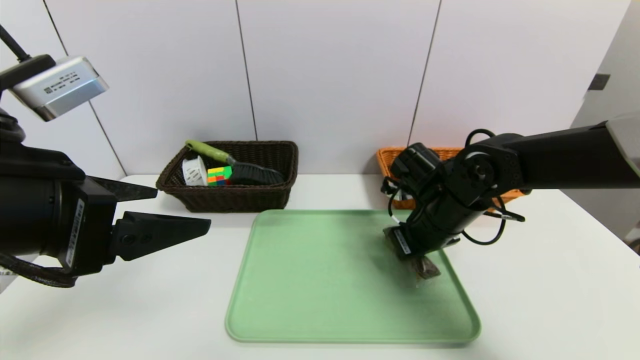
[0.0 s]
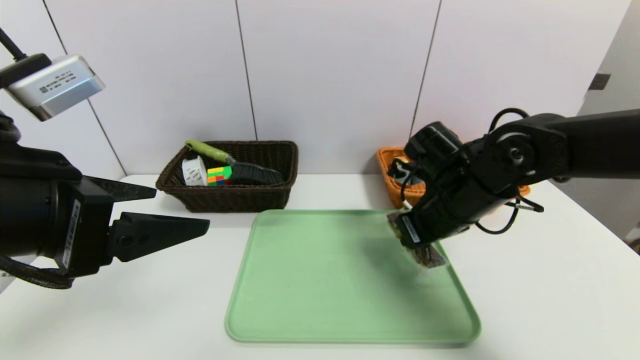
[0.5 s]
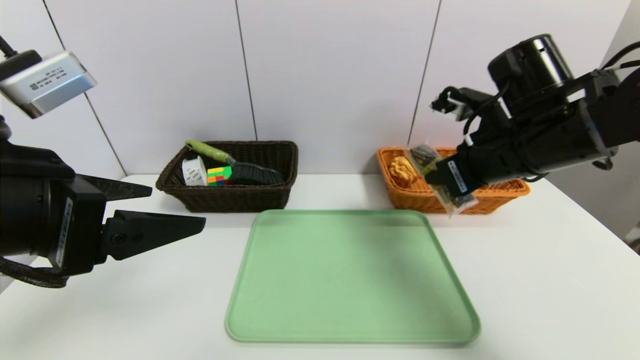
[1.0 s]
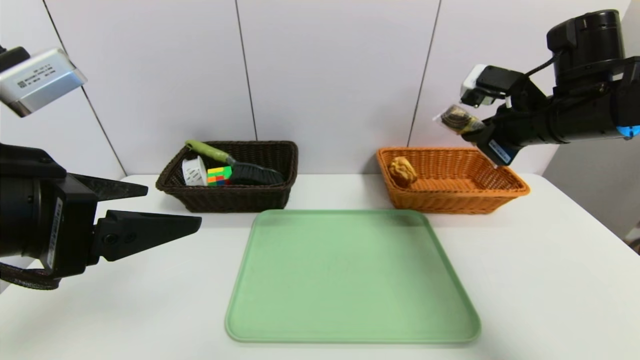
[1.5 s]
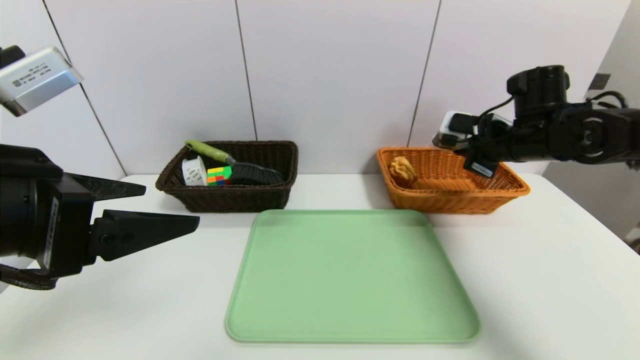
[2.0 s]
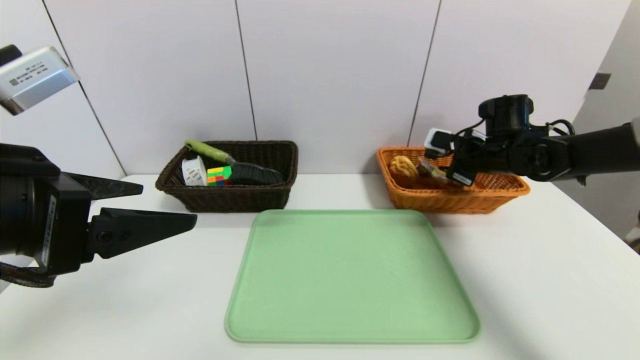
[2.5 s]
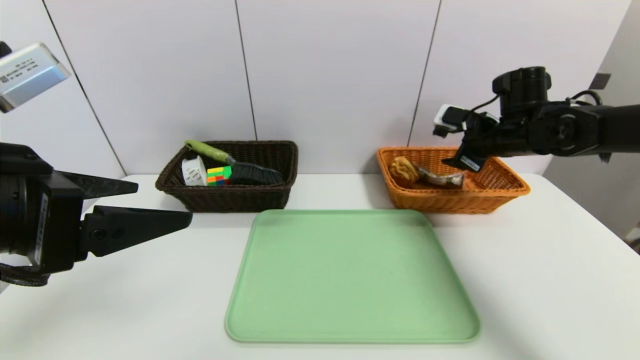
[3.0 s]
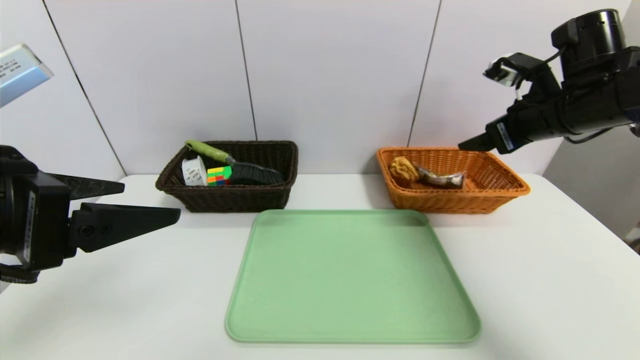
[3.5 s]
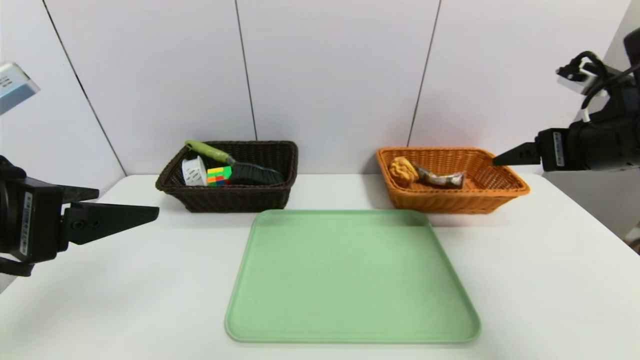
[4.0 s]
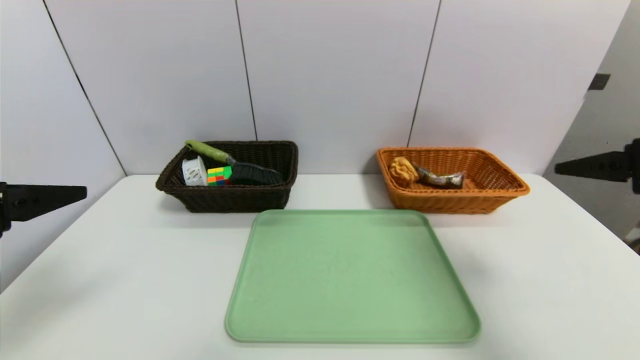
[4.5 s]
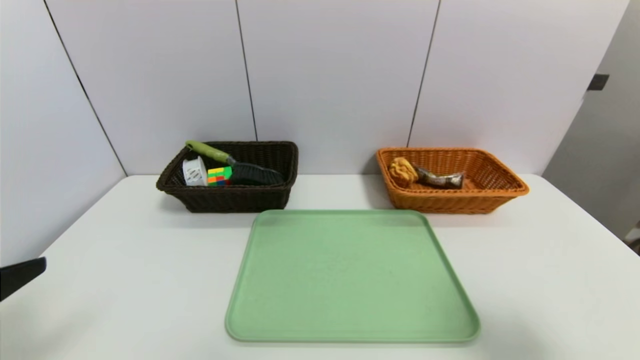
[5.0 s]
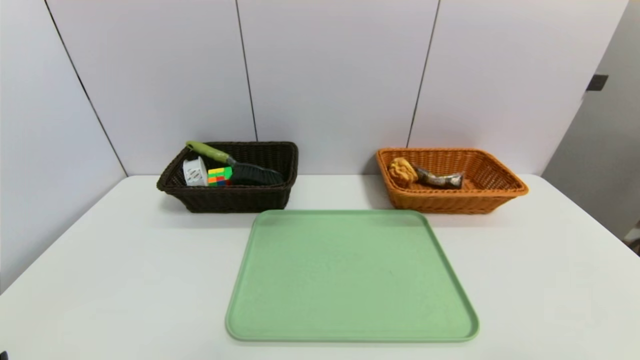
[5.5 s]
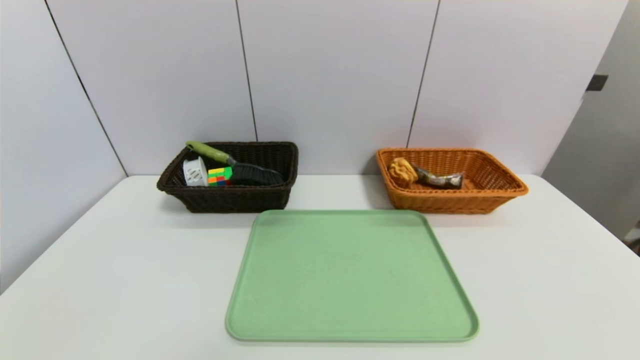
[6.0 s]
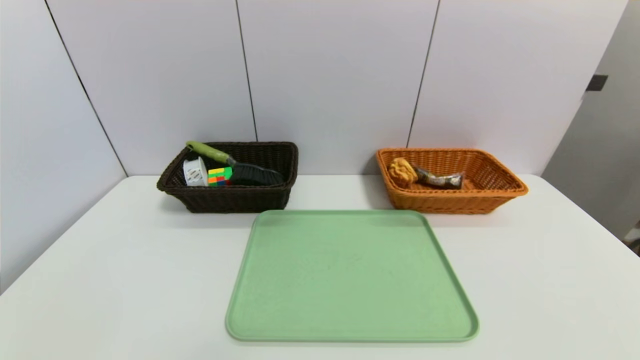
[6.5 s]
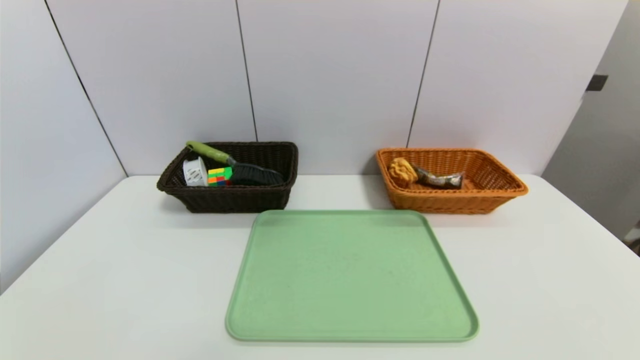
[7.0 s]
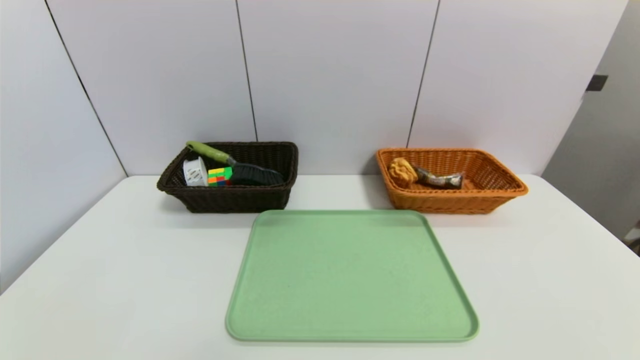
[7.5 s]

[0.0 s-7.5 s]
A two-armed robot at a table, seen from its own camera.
Task of the whole recording: place the food in the right basket with the right gripper, and place the non food items in the left basket with the left gripper.
Step, 0.0 to 3.0 s: Grasp the chocolate and put it in the right basket.
0.0 to 2.0 s: The right gripper goes about 15 cm to the right, upward and forward.
2.0 to 4.0 s: The right gripper goes approximately 15 cm backward and upward, and opens its fingers.
4.0 to 5.5 s: The left gripper heads backward and downward, covering roughly 15 cm, while the right gripper shifts roughly 25 cm backward.

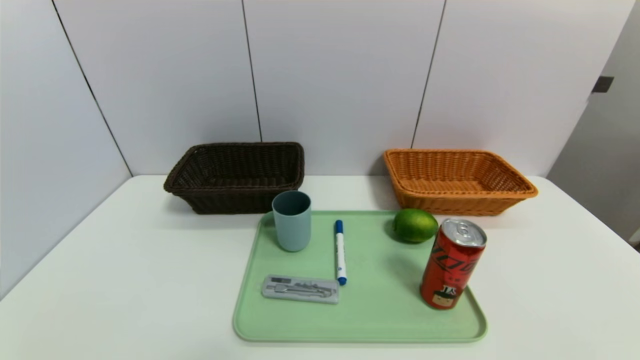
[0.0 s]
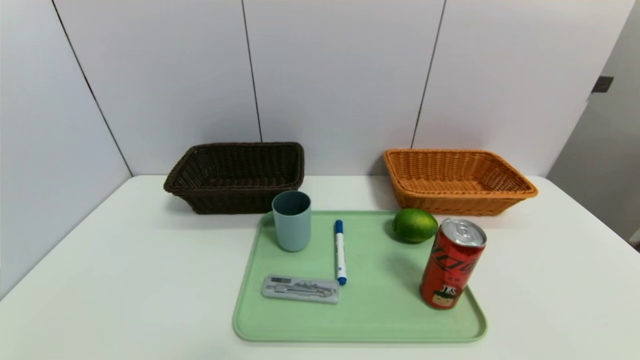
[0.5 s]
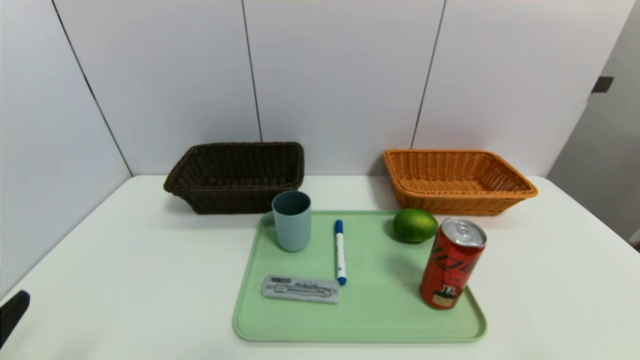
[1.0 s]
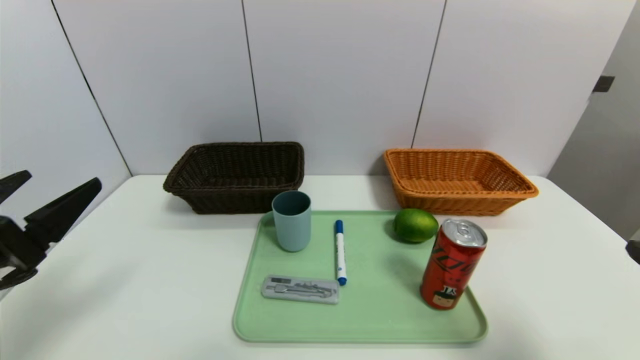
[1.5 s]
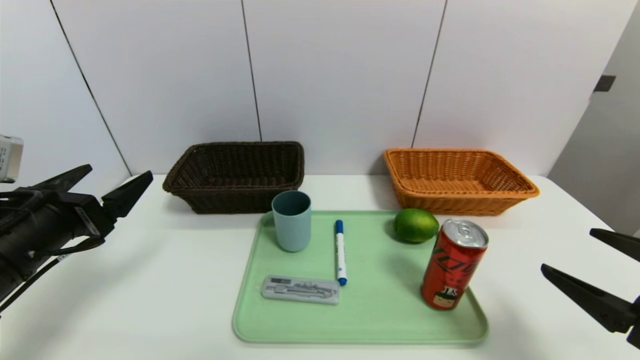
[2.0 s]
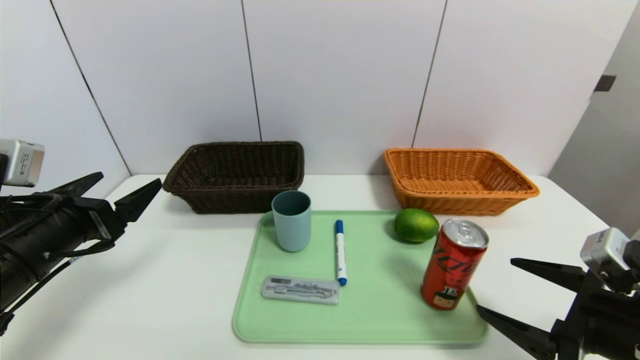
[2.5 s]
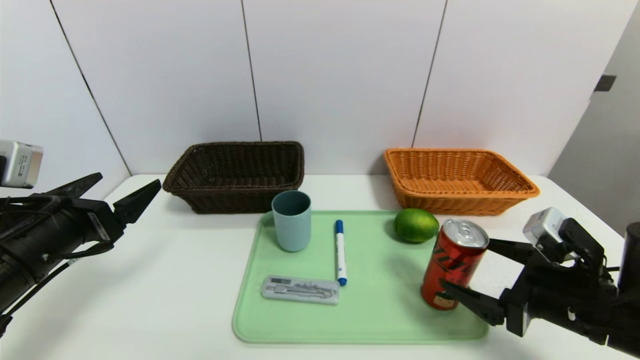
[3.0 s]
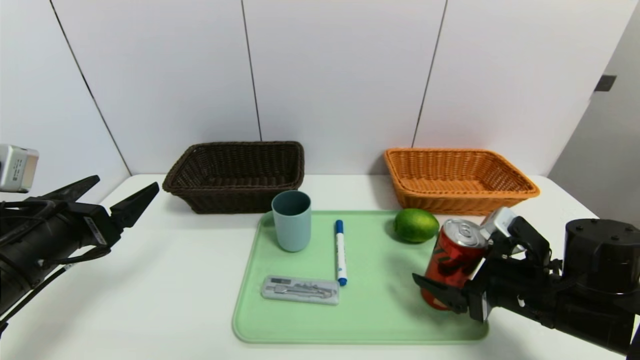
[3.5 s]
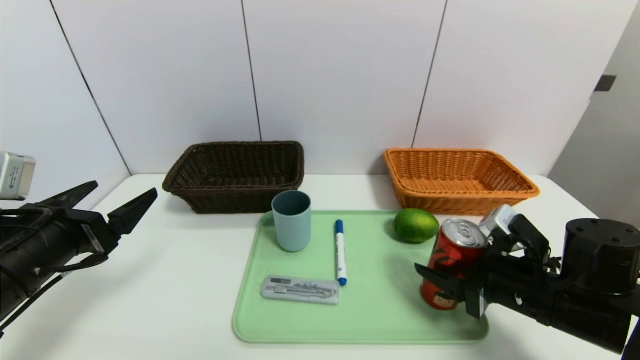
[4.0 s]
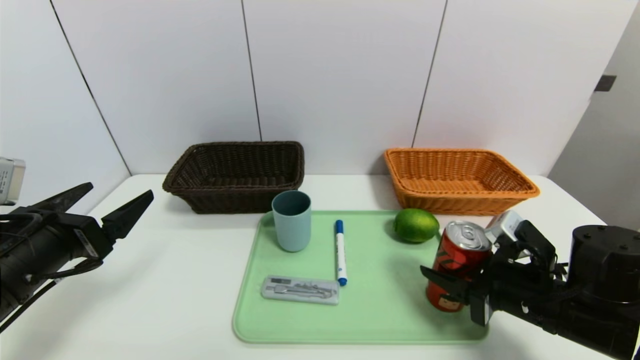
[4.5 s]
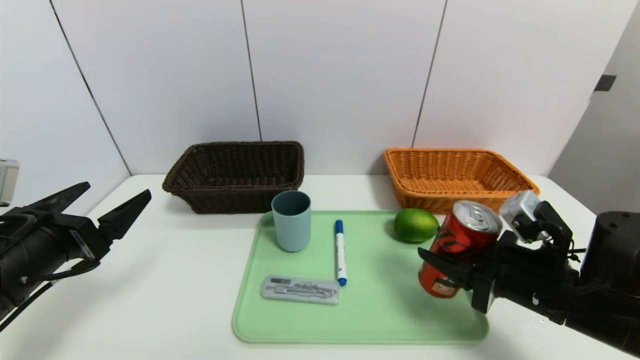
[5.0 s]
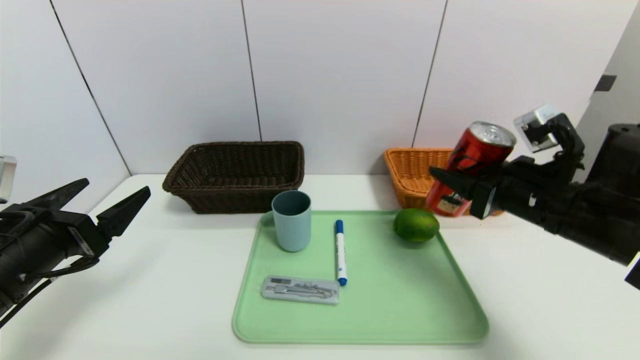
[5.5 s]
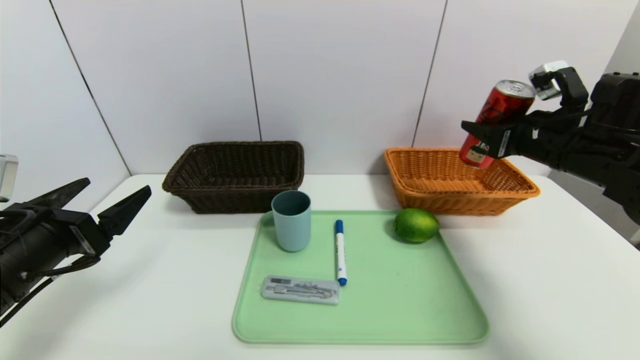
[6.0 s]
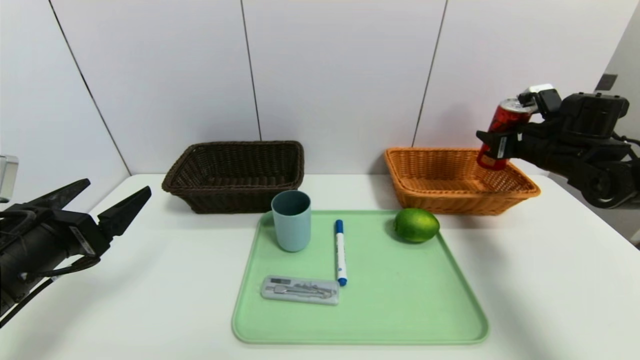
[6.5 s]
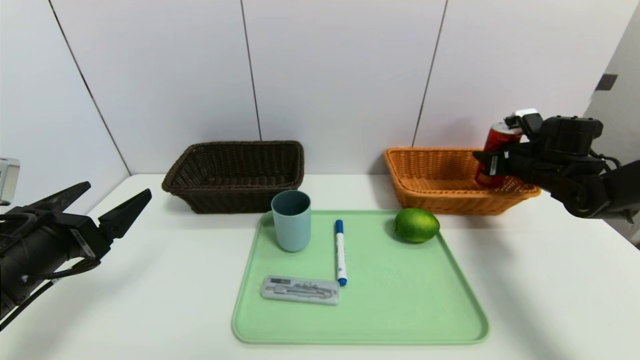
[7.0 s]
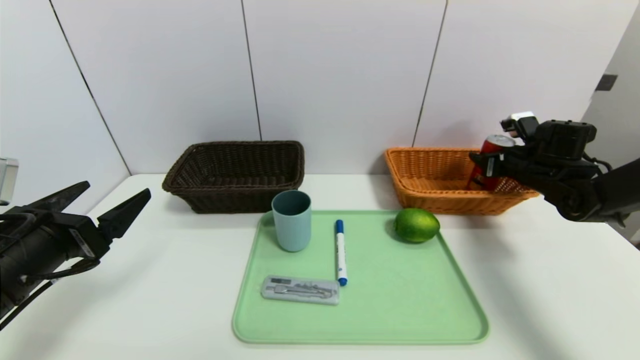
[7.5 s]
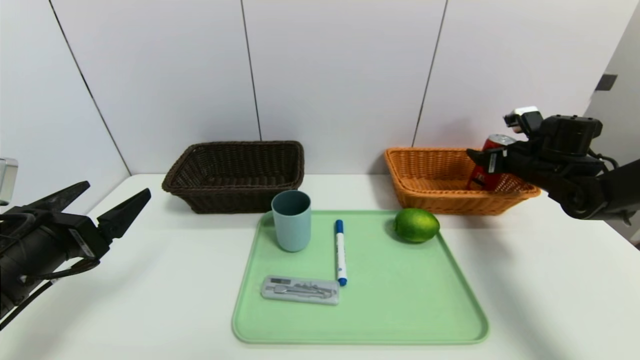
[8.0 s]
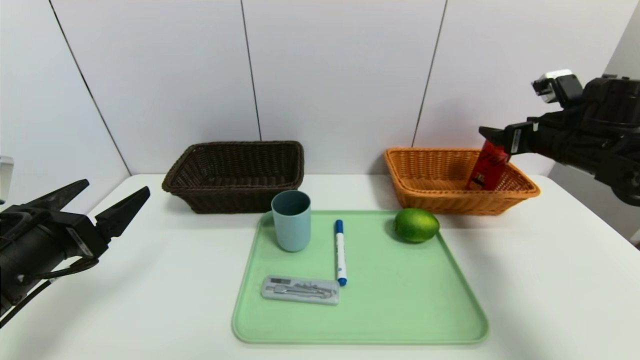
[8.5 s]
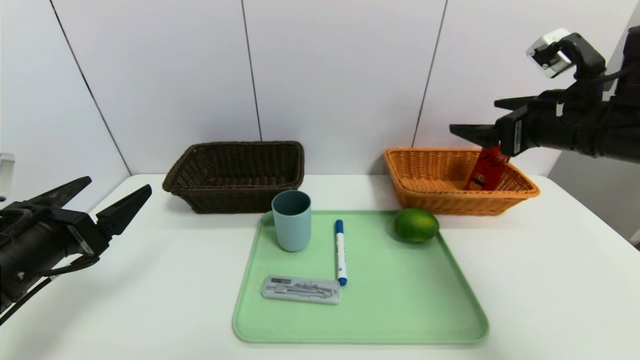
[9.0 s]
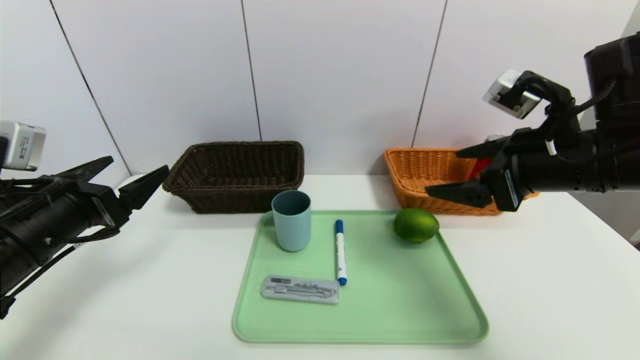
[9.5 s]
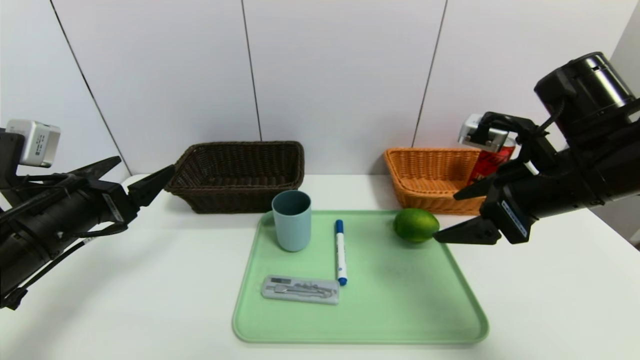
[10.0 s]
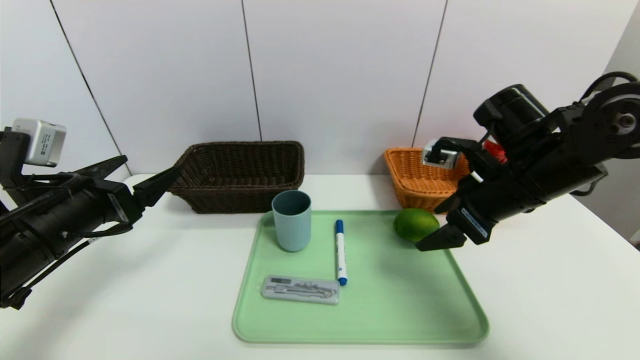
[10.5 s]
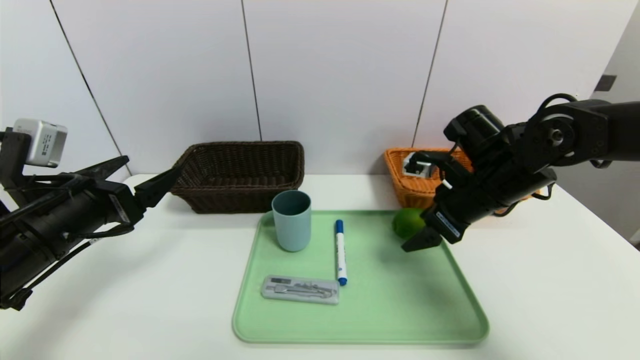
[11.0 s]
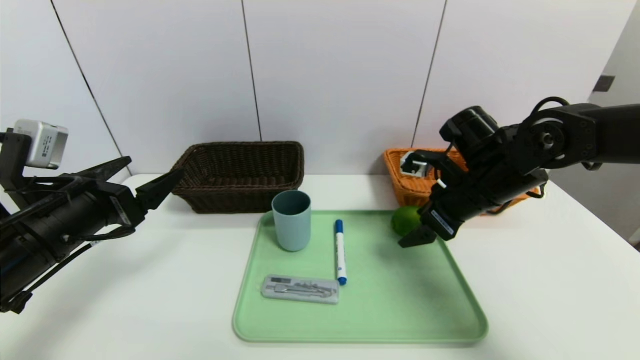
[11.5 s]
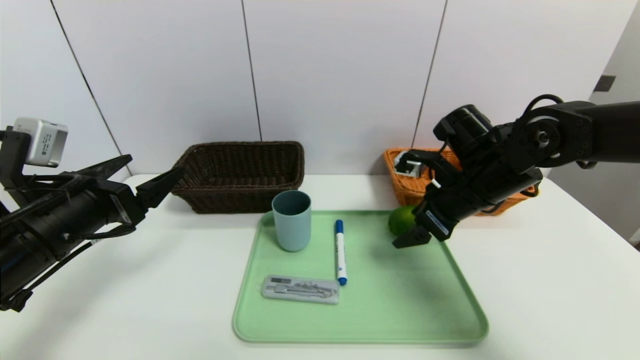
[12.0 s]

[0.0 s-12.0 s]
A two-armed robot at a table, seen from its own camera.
Task of the whole recording: place the food in the right basket with the right gripper, and place the non food items in the left basket with the left gripper.
Step, 0.0 to 8.5 s: Grasp the canned cola and put it in the right basket.
0.0 to 2.0 s: Both grippers move forward and upward, roughly 20 cm.
2.0 to 4.0 s: The right gripper is displaced forward, to the left and downward by about 15 cm, and closes its fingers.
4.0 to 6.0 s: The right gripper heads upward, forward and to the right, covering approximately 20 cm, and closes up.
6.0 to 8.0 s: The right gripper is displaced forward, downward and to the right by approximately 15 cm, and opens up.
8.0 to 10.0 s: The right gripper goes approximately 25 cm backward, to the left and upward.
10.0 to 12.0 s: The right gripper moves forward and downward, some 10 cm.
